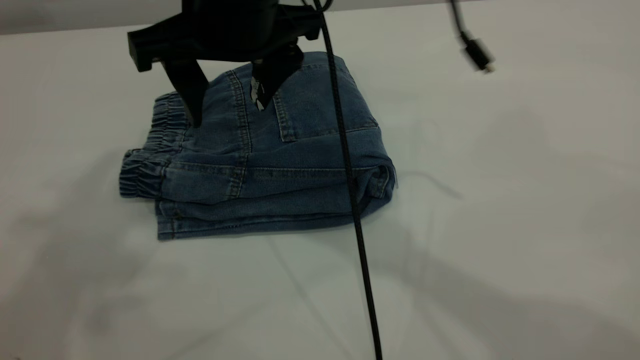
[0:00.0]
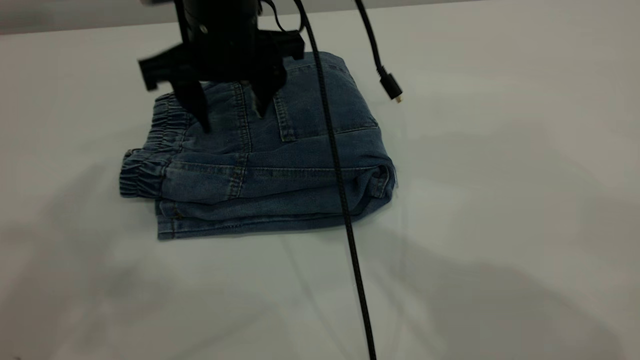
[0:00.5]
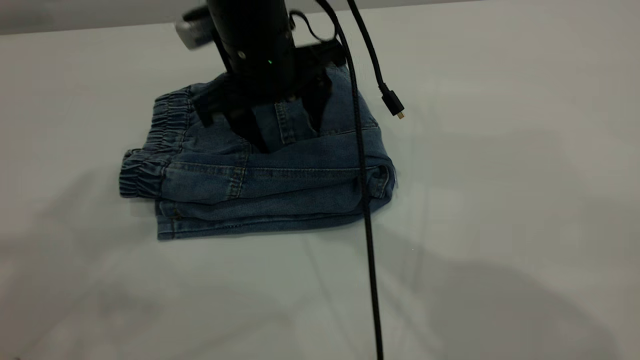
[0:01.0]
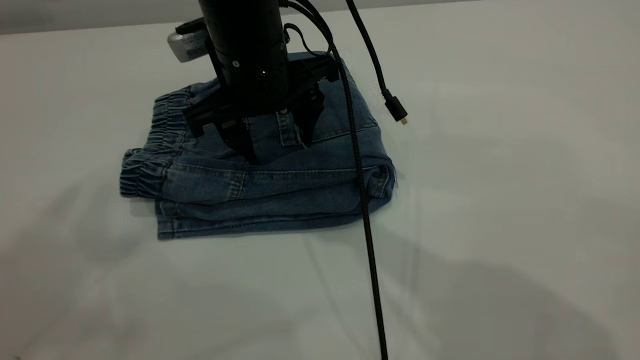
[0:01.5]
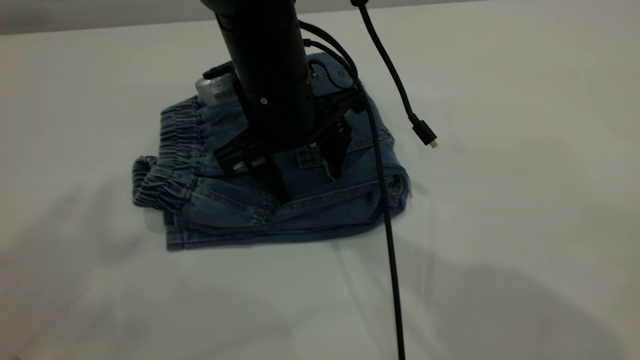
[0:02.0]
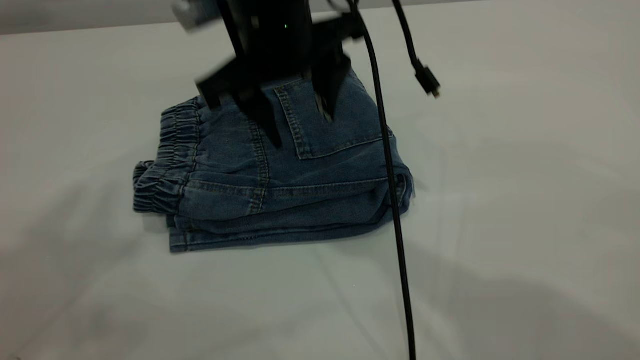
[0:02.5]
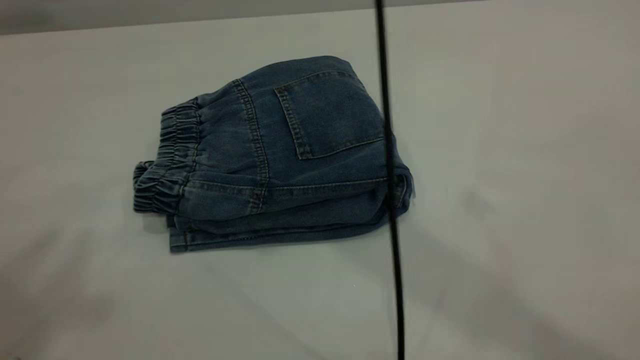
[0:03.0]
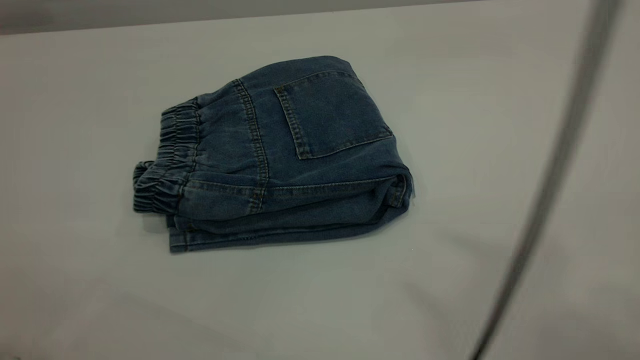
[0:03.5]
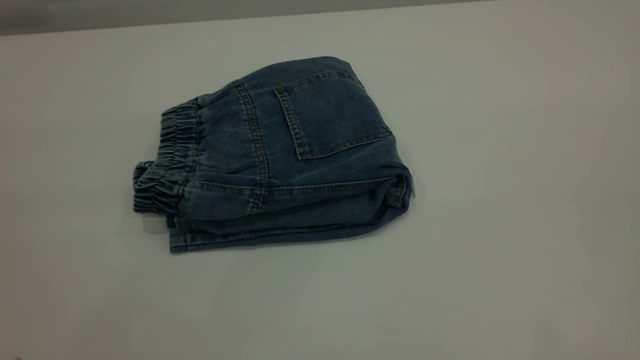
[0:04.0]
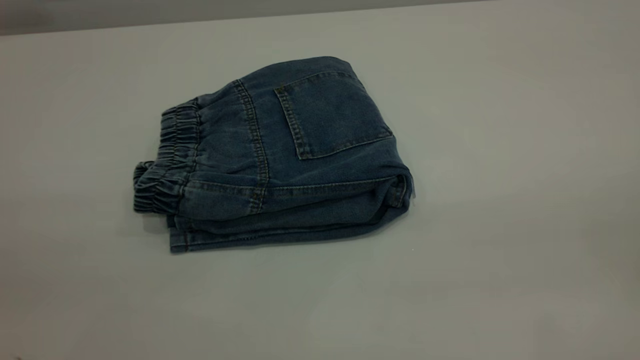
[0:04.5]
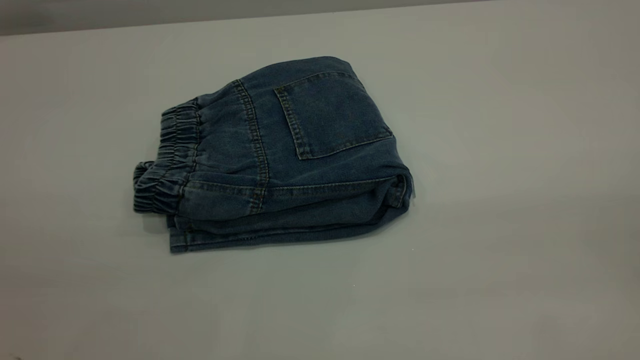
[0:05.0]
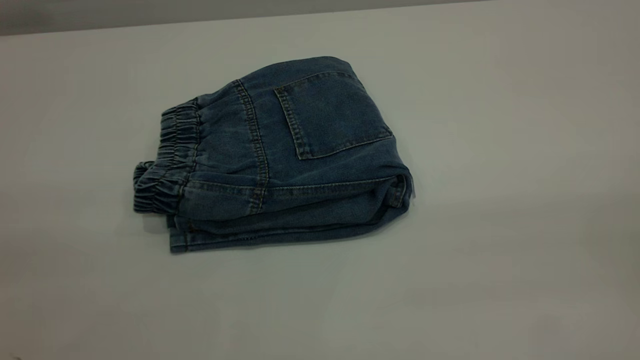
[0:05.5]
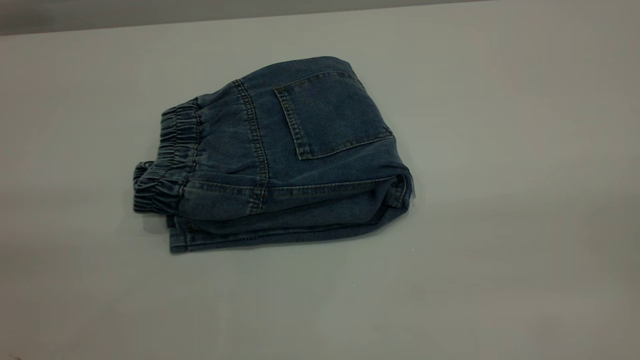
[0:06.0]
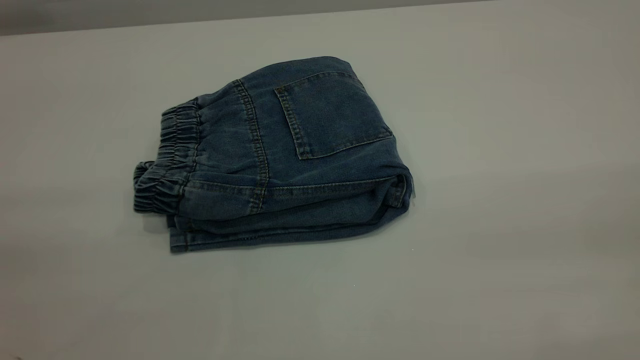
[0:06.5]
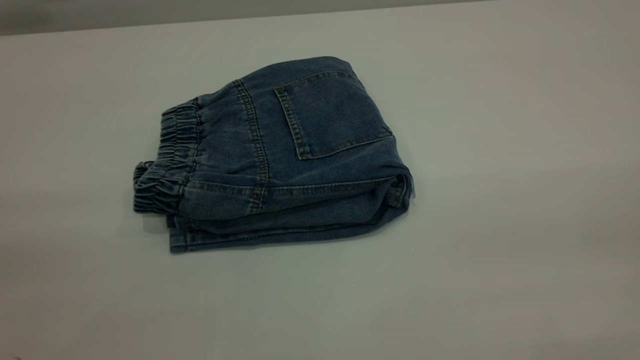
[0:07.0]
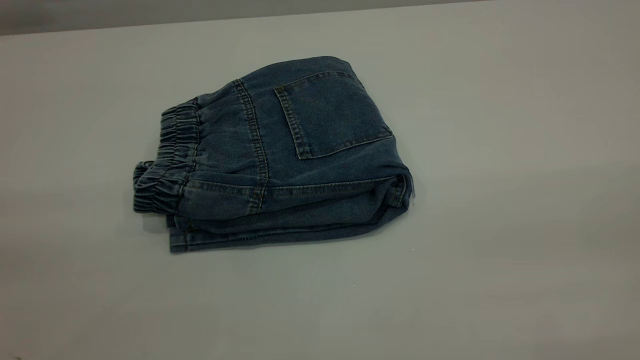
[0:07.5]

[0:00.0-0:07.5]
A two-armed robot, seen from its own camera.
0:00.0 to 0:02.0: The right gripper moves downward, some 10 cm.
0:02.0 to 0:04.0: The left gripper is displaced backward by approximately 20 cm; the right gripper goes approximately 60 cm to the right, backward and upward.
